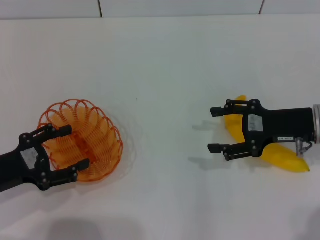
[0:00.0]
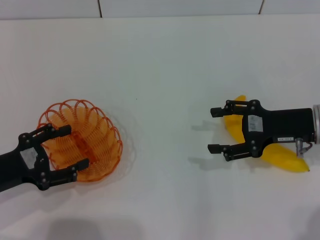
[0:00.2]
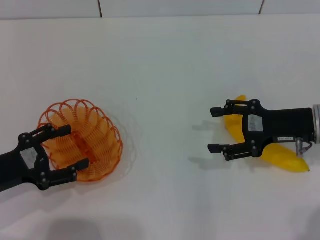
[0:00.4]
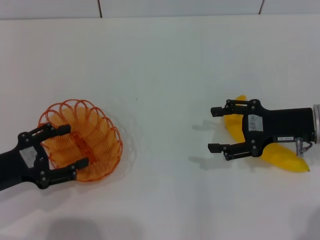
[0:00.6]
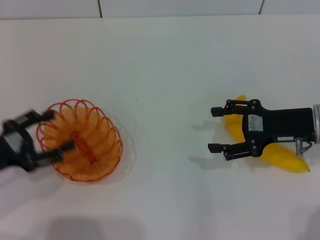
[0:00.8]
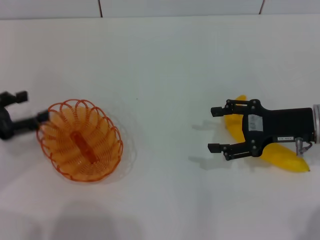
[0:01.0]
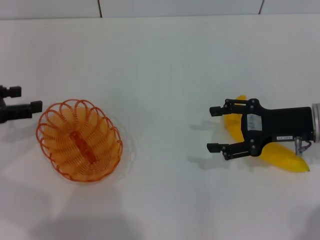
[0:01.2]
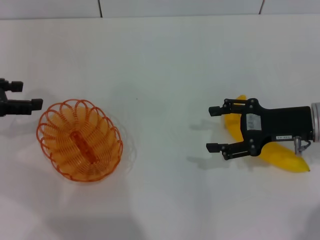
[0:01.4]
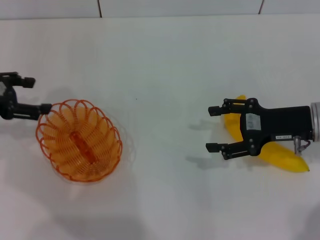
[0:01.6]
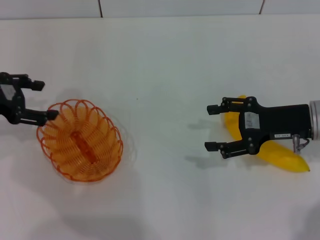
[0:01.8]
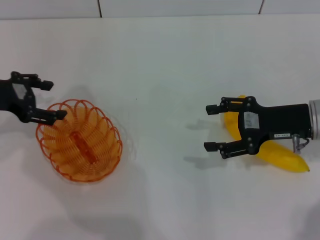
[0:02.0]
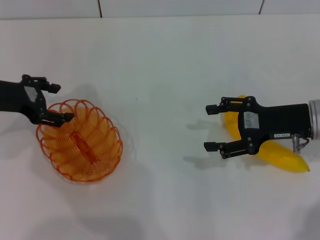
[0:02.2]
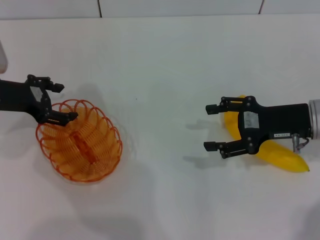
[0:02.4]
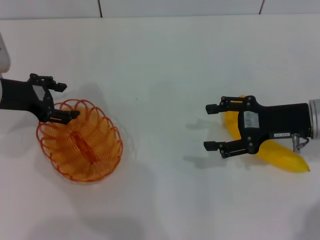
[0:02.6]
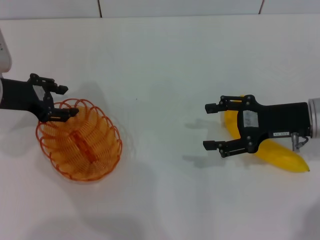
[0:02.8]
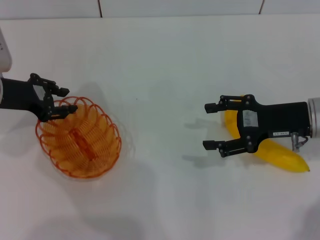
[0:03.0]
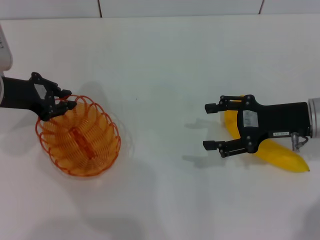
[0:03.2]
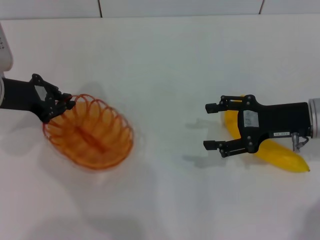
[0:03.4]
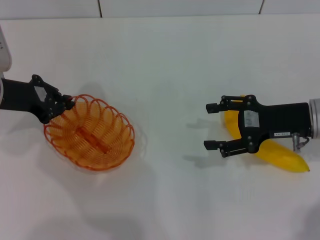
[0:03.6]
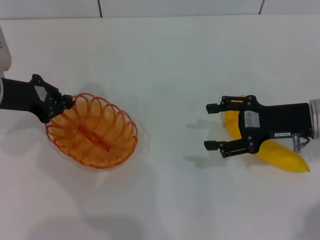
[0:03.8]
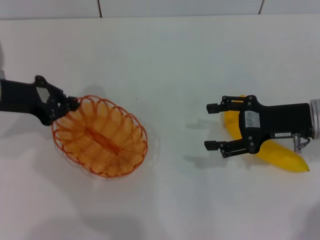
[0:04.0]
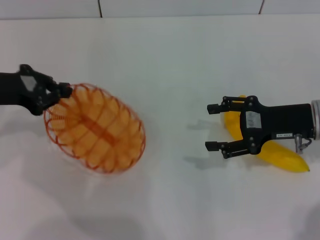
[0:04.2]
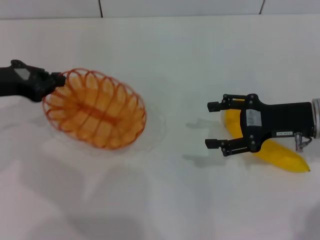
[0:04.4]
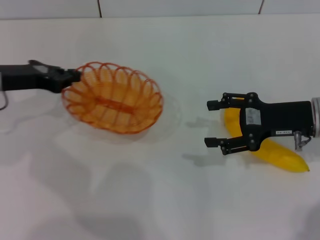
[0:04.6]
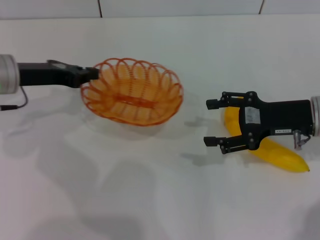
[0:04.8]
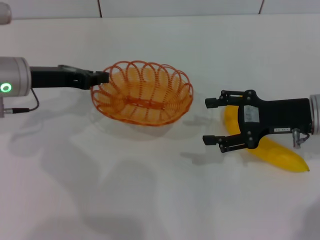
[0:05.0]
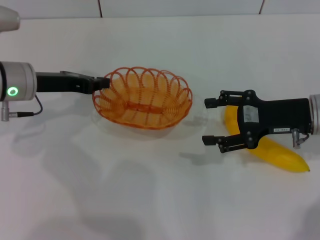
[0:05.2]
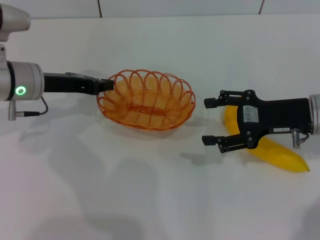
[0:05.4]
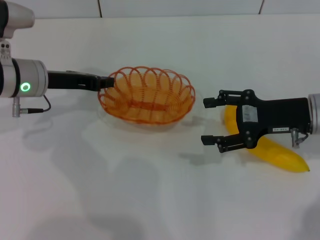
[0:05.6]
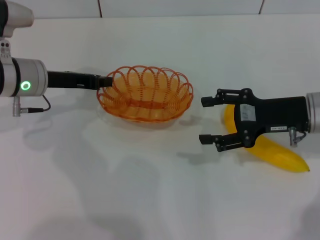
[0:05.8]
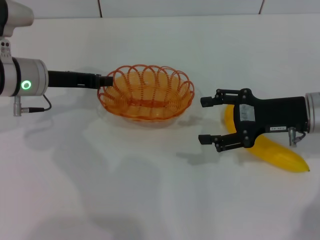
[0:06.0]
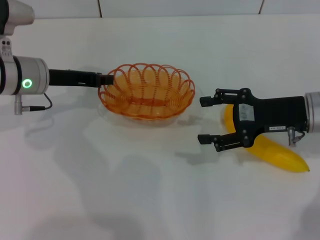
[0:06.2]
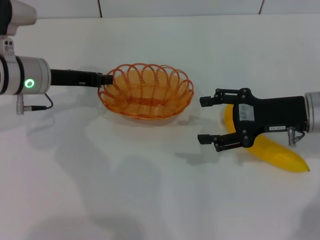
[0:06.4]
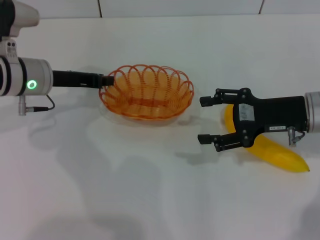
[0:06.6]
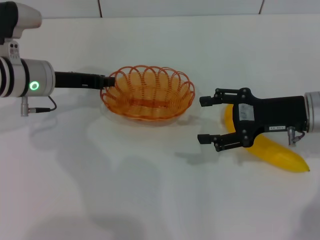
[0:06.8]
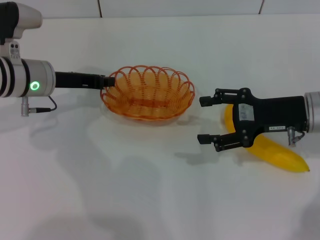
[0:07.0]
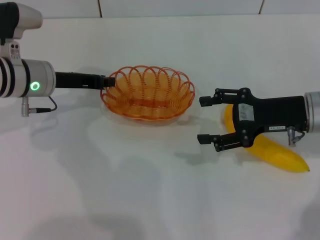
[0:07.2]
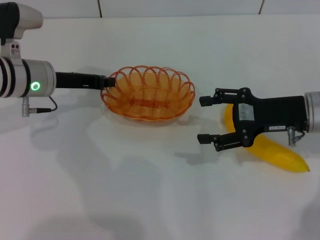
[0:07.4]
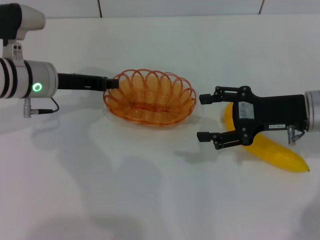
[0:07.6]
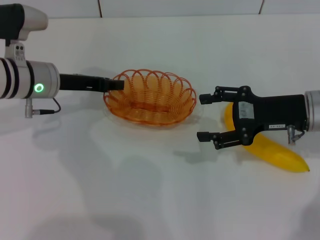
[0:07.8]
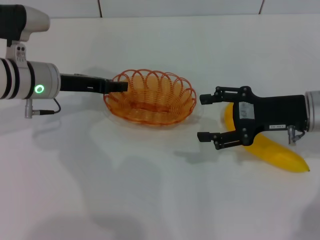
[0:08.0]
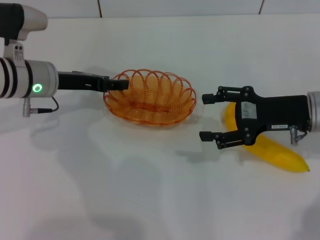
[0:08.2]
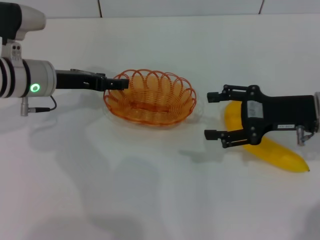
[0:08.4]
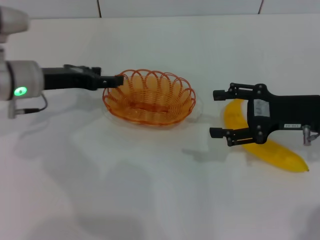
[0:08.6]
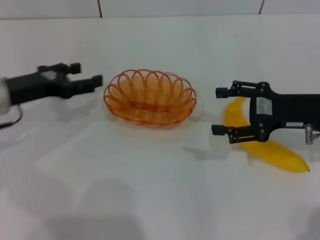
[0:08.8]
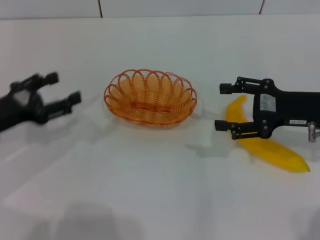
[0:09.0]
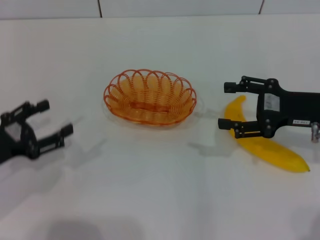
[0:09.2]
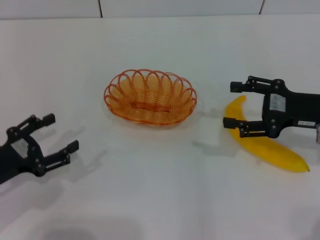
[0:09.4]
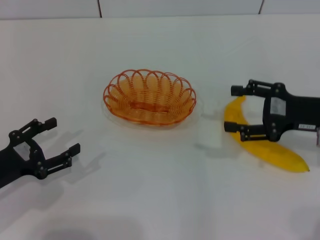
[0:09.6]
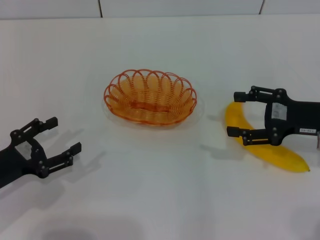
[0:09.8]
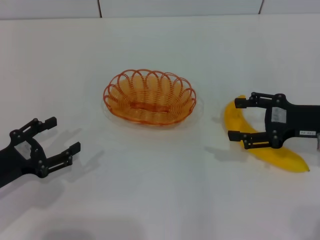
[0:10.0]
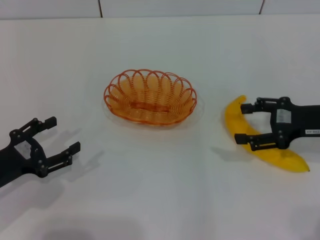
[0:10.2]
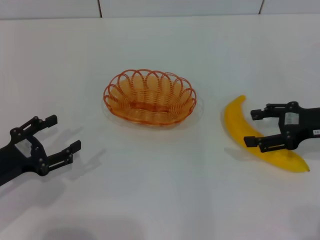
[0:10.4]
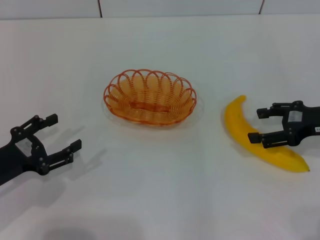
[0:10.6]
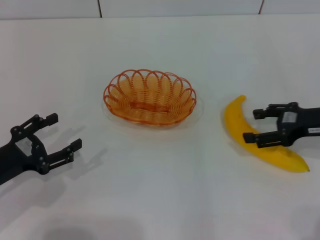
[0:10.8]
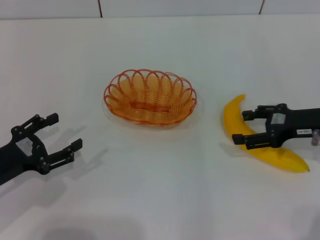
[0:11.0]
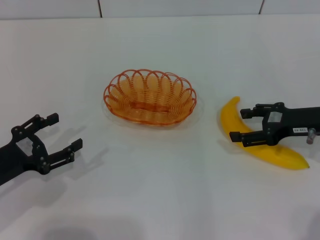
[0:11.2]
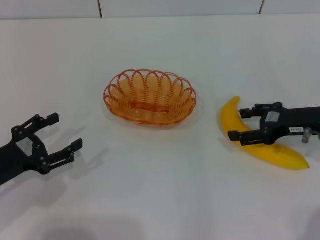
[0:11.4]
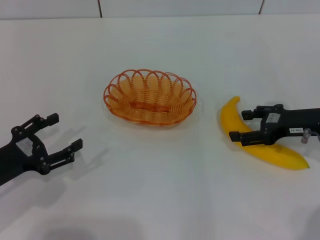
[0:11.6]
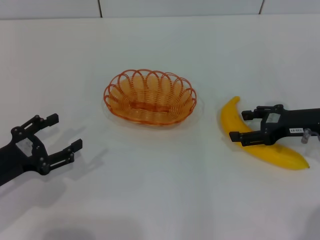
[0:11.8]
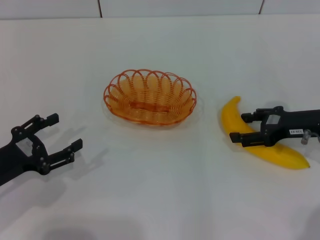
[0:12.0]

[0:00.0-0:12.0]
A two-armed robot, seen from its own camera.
Step, 0.0 to 4.2 s: Pick up the basket with the left gripper.
Step, 4.4 to 9.0 s: Place the basket in the center of view with the left gripper.
0.0 to 1.6 s: The left gripper goes about 15 cm forward and upward.
1.6 to 3.0 s: The left gripper is displaced to the right by about 5 cm.
3.0 to 4.4 s: The left gripper closes its fingers.
4.4 to 6.0 s: The left gripper goes approximately 10 cm to the right.
6.0 to 7.6 s: The grippers stay close to where they were, moving slightly.
7.6 to 9.0 s: The left gripper goes some 15 cm backward and to the left, and opens up.
9.0 to 10.4 s: The left gripper is displaced backward by roughly 5 cm.
10.4 to 12.0 s: The grippers make only small movements.

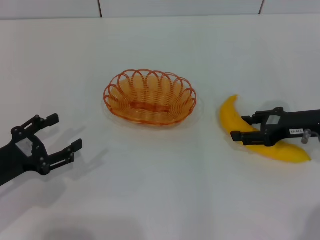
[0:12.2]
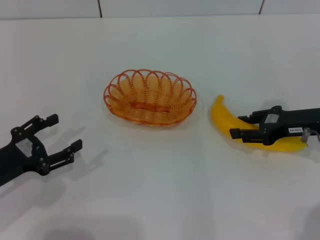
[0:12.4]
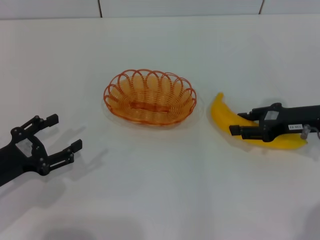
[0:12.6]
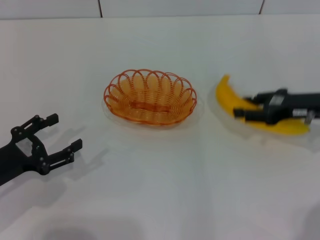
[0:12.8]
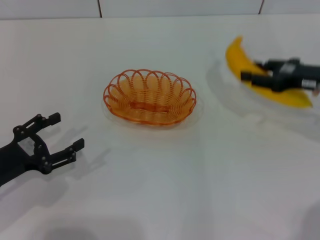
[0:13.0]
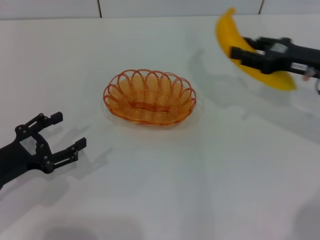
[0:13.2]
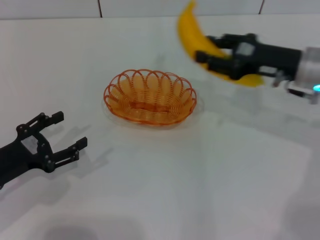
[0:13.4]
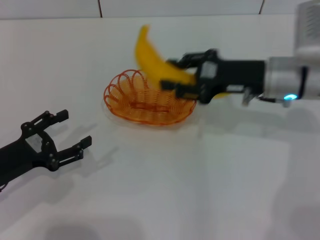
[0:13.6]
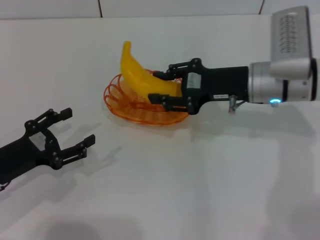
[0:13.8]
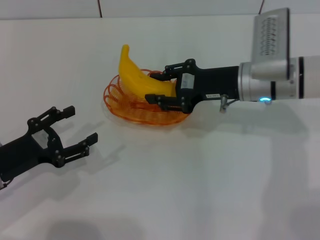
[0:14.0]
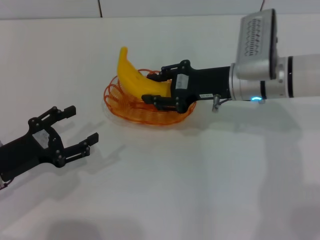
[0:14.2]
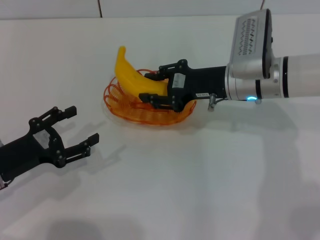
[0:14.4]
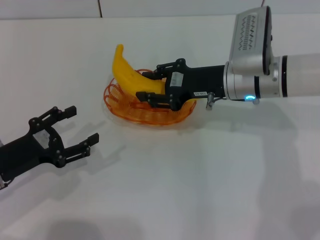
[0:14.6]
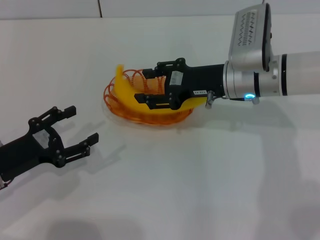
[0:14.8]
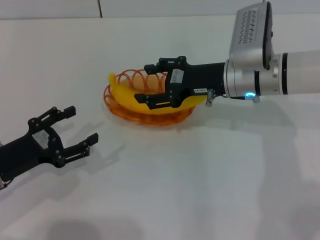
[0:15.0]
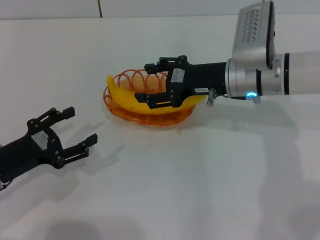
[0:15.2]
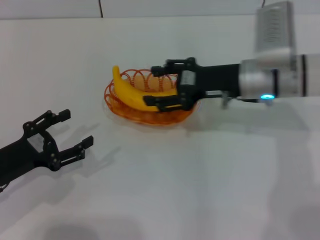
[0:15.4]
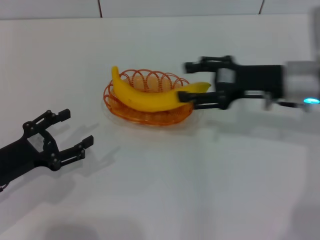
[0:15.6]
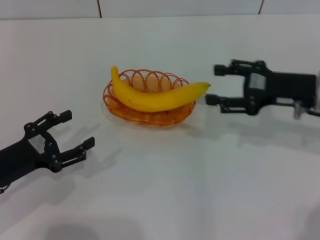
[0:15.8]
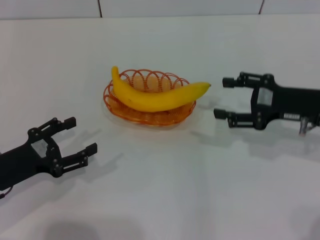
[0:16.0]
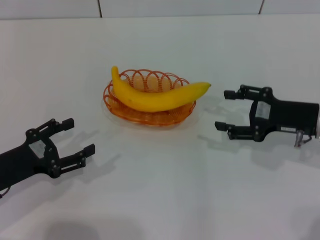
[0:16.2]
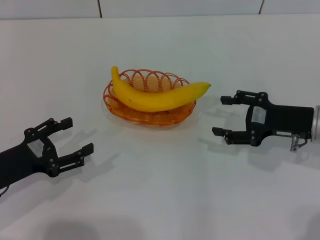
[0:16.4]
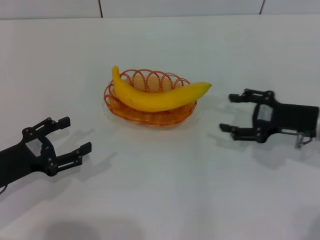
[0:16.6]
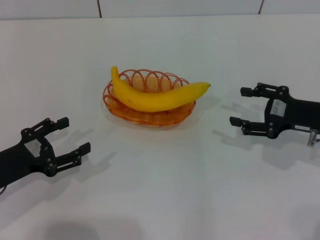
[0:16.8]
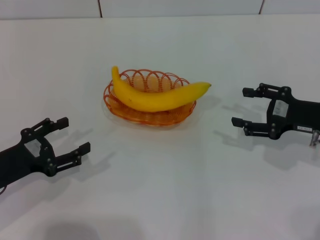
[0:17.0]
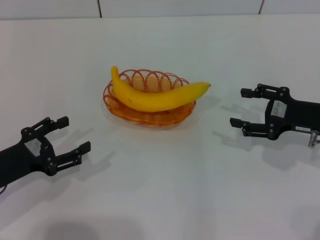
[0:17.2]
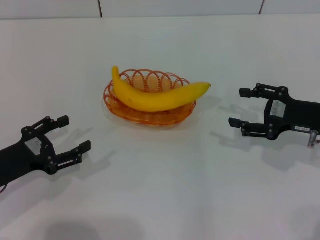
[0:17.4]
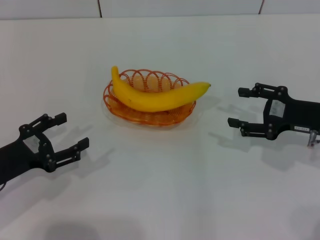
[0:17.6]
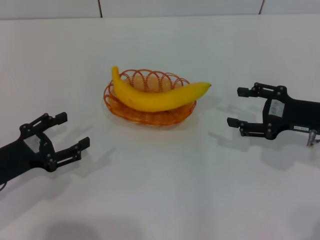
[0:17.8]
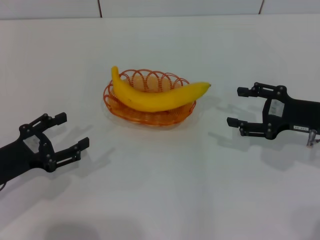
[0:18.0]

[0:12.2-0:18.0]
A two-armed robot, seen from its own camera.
Step, 13.2 to 15.6 s: Place the banana into the basket with the right gripper.
12.2 to 13.6 s: The right gripper shifts about 10 cm to the left, and closes its fingers.
13.6 to 15.0 s: The right gripper ends up about 5 cm from where it was.
15.0 to 16.6 s: The right gripper heads to the right and backward, covering some 15 cm, and opens.
16.6 to 18.0 s: The grippers make only small movements.

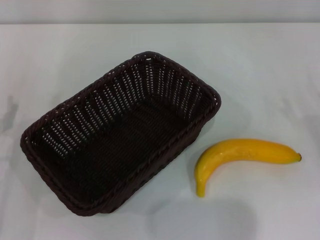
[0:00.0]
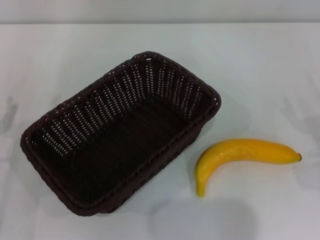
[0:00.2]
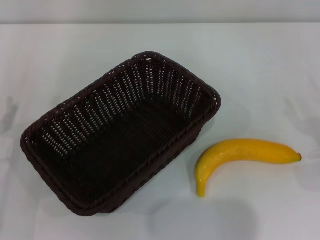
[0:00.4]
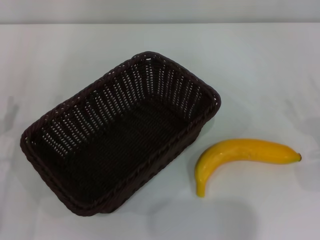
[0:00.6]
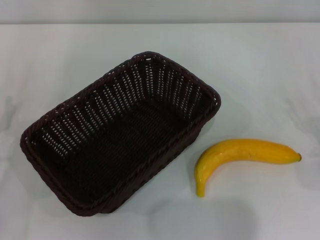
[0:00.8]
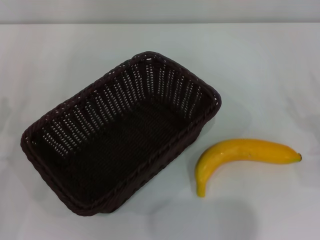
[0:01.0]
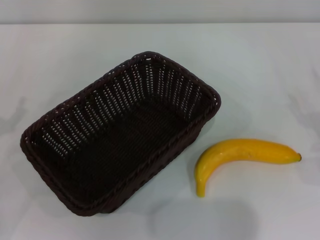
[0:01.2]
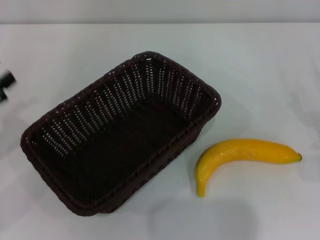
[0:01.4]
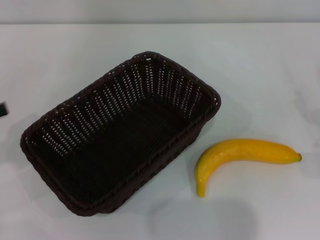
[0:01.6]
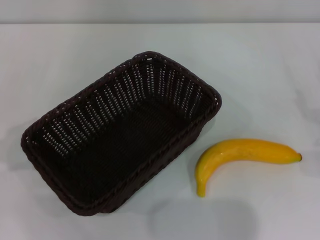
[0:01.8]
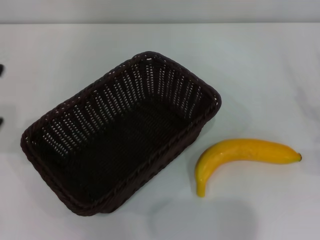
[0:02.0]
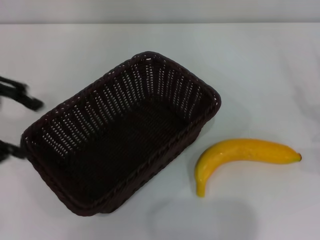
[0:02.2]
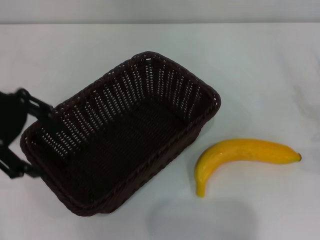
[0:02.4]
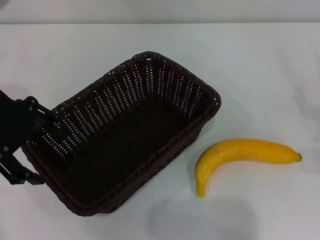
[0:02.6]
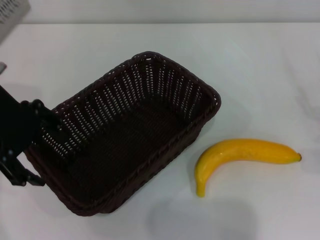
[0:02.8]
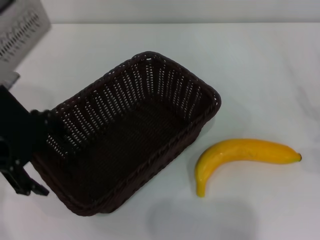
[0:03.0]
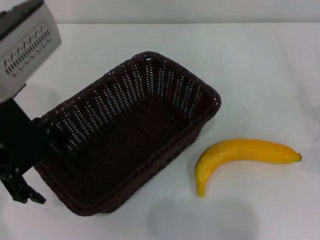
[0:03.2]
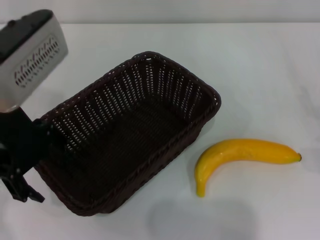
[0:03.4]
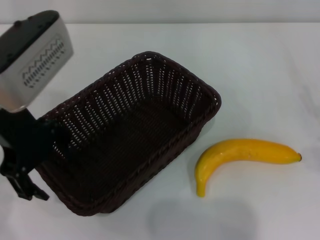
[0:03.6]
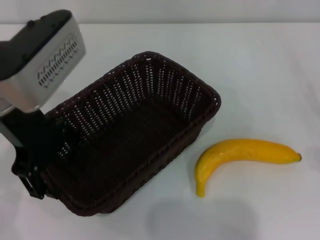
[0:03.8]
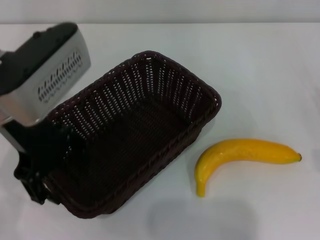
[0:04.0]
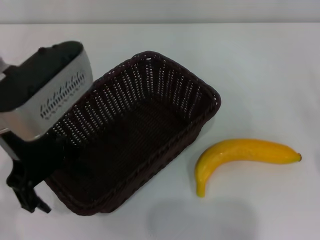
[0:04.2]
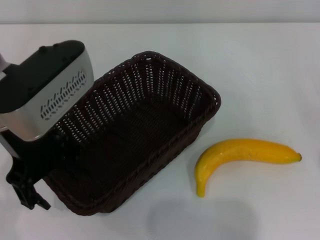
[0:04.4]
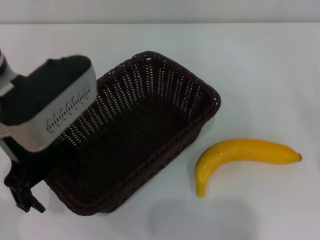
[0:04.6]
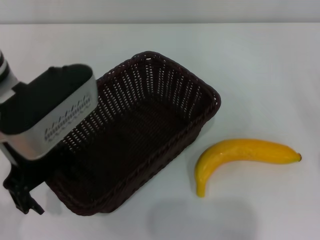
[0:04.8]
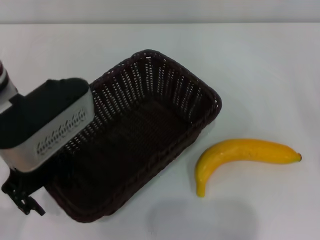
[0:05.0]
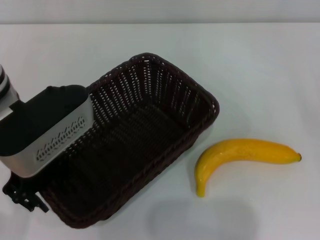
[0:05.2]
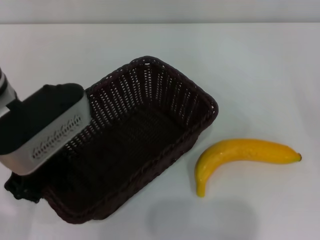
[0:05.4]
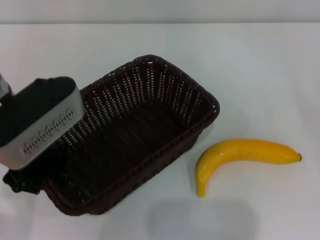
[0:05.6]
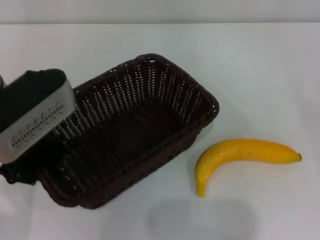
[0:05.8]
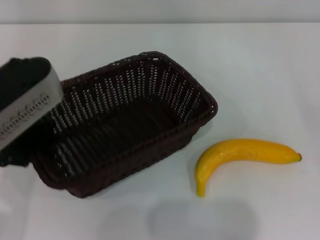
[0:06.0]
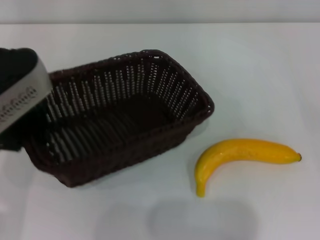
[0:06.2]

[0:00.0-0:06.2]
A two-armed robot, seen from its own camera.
Step, 0.0 to 6.2 s: Pick up the dark basket with the left gripper.
1.6 to 3.2 s: The left gripper shifts roughly 20 cm to the right, upward and forward.
3.2 to 4.6 s: The grippers stay close to where they were, moving slightly.
4.6 to 6.2 s: The left gripper closes up.
